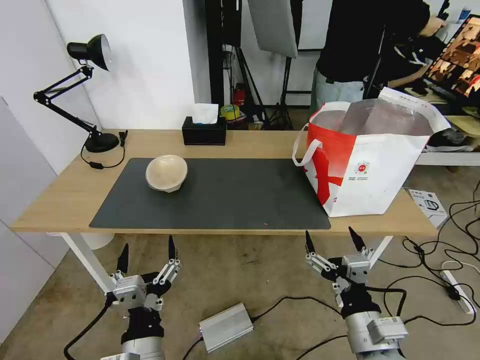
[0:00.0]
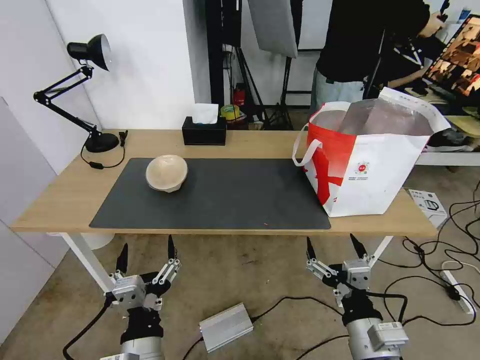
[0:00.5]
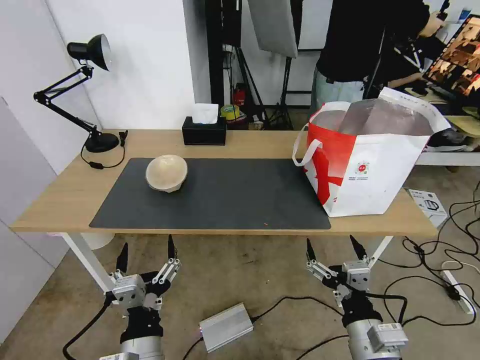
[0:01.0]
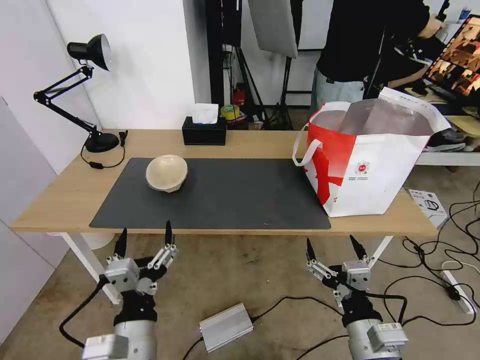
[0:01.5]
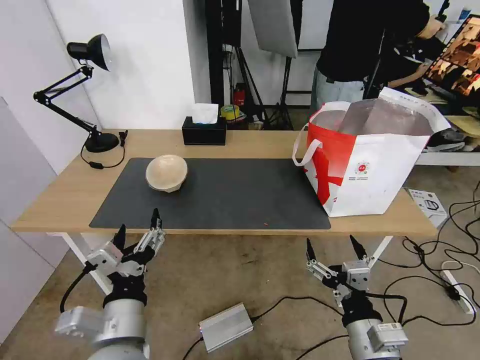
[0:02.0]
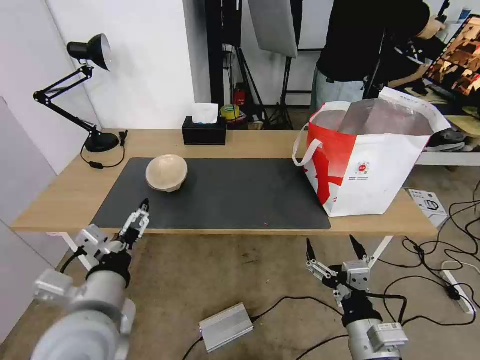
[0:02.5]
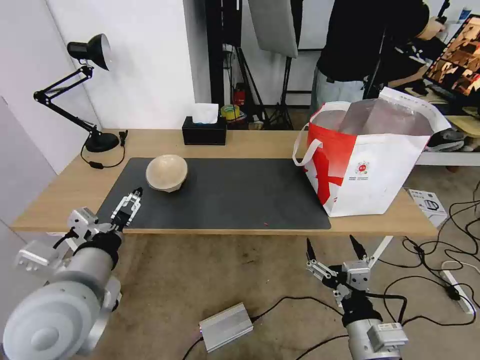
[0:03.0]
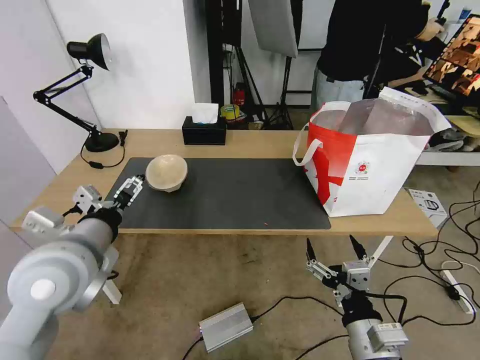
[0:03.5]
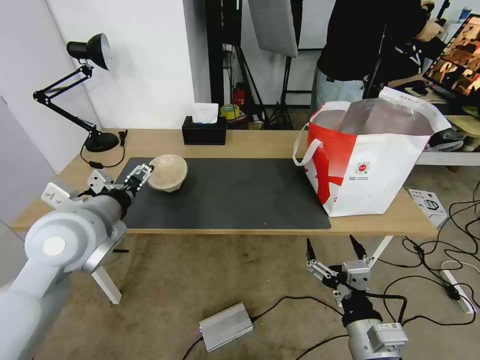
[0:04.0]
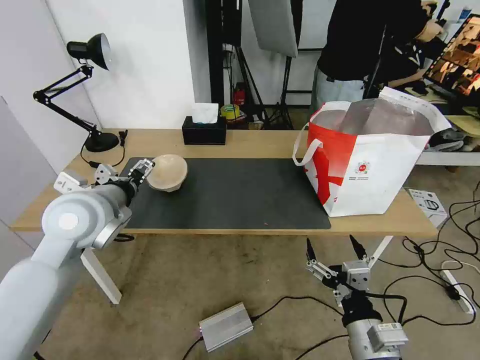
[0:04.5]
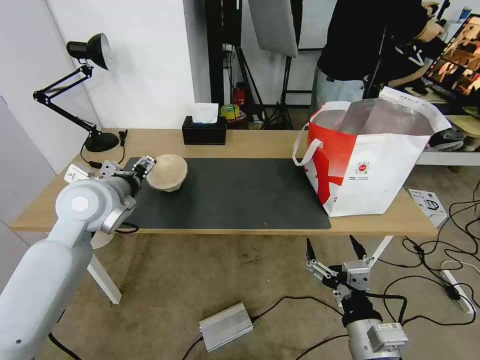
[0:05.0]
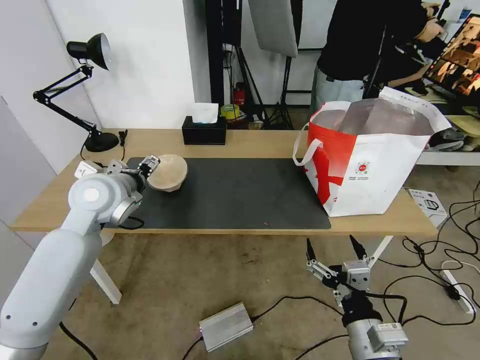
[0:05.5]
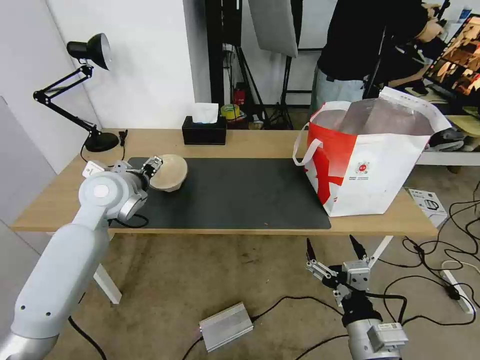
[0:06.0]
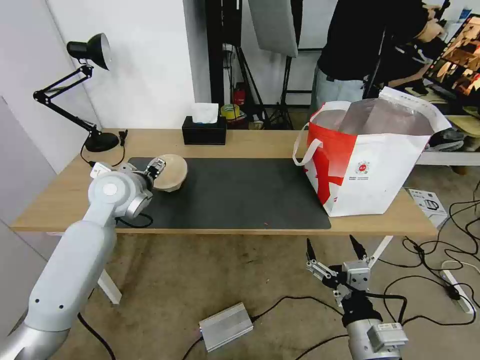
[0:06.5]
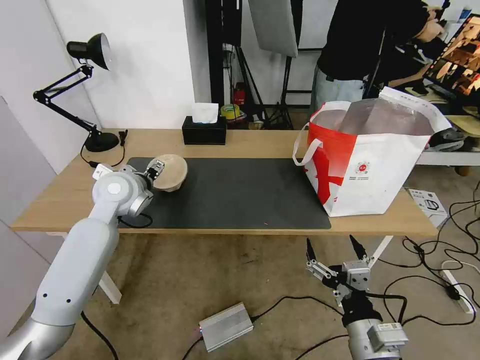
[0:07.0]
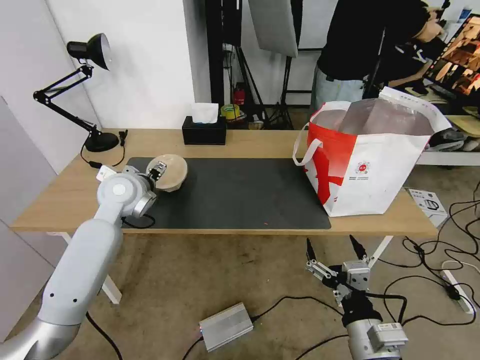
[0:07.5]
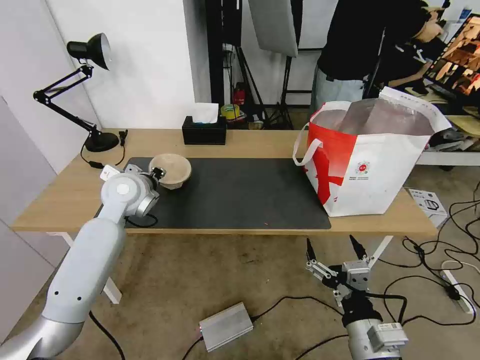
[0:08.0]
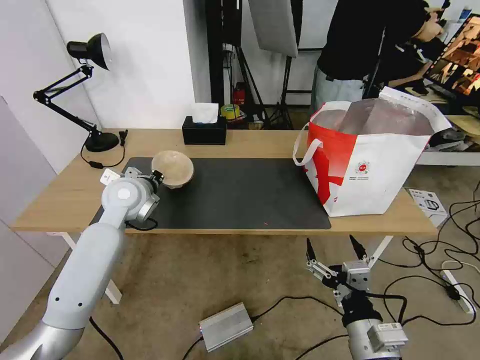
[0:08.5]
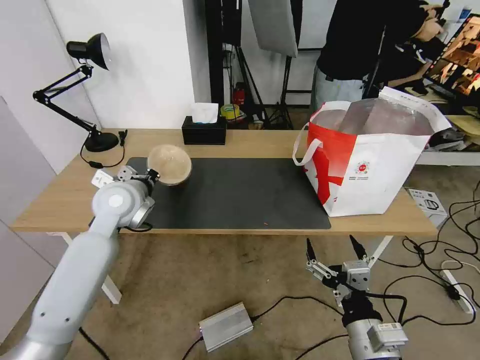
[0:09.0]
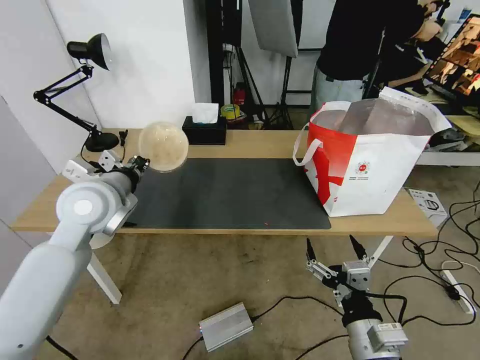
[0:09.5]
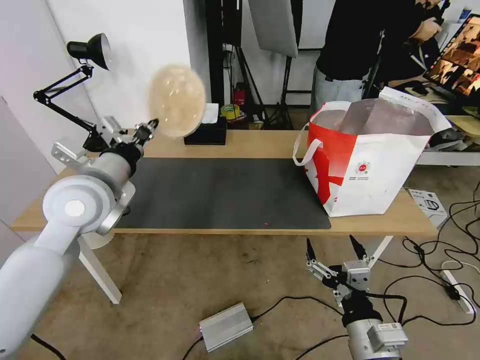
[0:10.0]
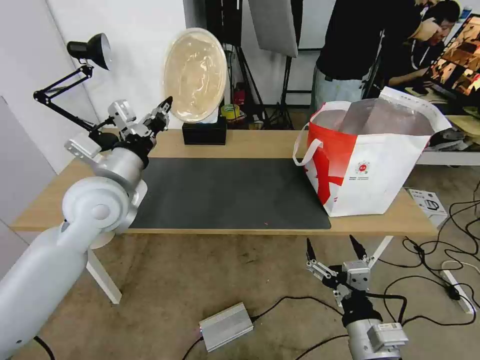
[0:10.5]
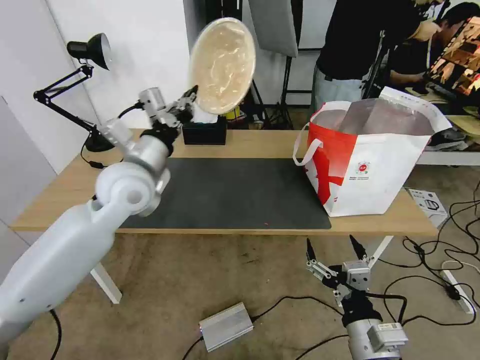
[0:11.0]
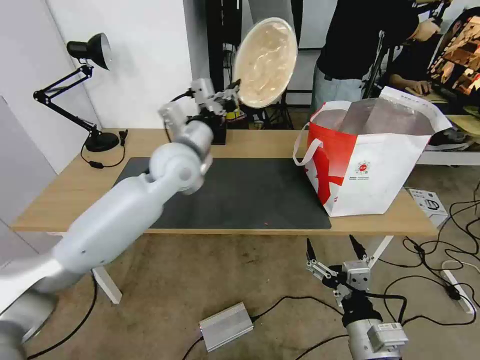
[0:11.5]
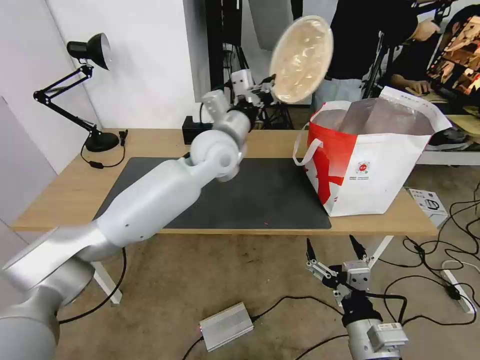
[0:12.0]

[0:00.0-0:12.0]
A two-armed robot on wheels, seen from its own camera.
Task of the whole recording: Pick up the trash from the table and place it into the takeout bag.
0:00.0 to 0:02.0: The left gripper is displaced upward by approximately 5 cm.
0:02.0 to 0:04.0: The left gripper goes some 20 cm forward, upward and to the left.
0:04.0 to 0:06.0: The left gripper shifts some 10 cm forward.
0:06.0 to 0:08.0: The left gripper changes place by approximately 5 cm, and closes.
0:08.0 to 0:10.0: The left gripper heads backward and upward, covering some 15 cm.
0:10.0 to 0:12.0: The left gripper shifts roughly 25 cm to the right and forward.

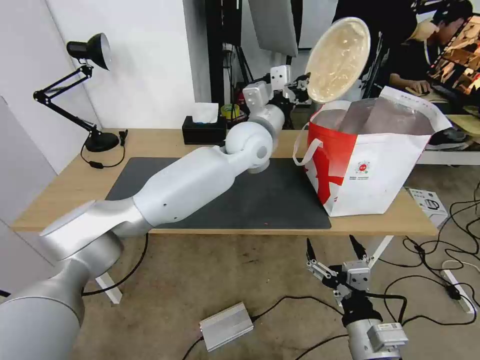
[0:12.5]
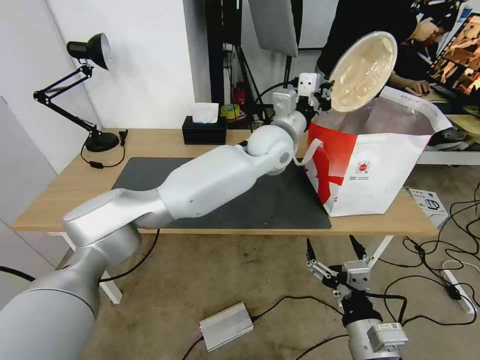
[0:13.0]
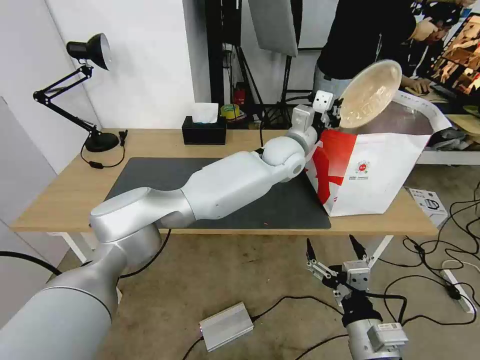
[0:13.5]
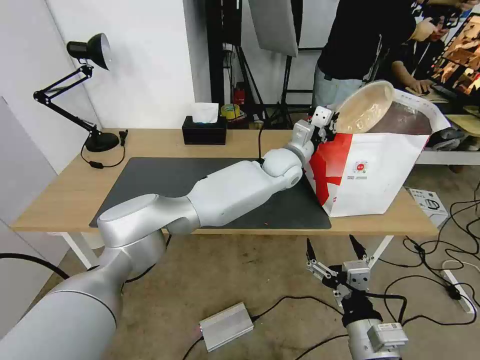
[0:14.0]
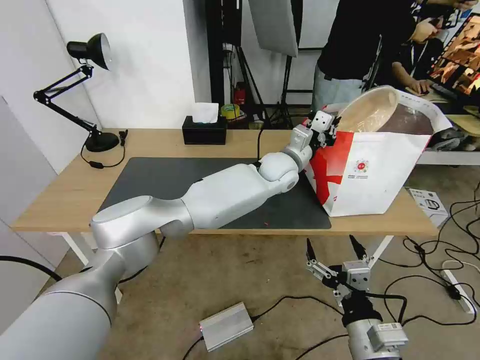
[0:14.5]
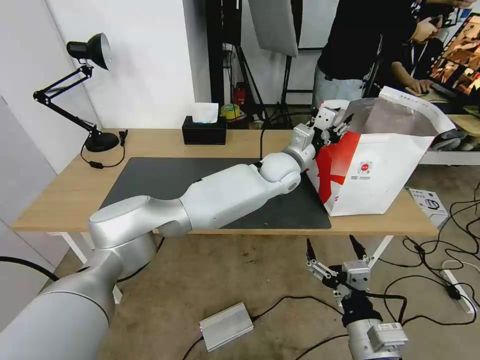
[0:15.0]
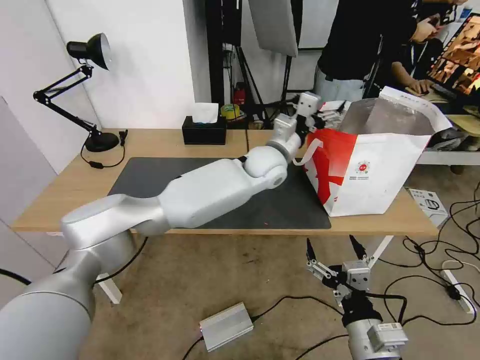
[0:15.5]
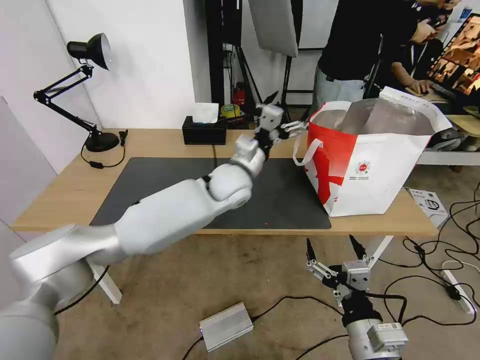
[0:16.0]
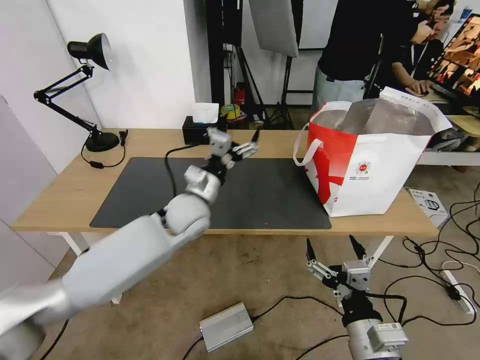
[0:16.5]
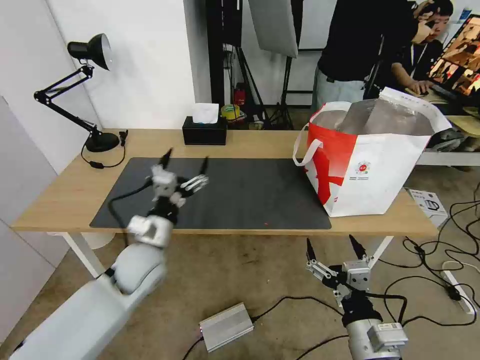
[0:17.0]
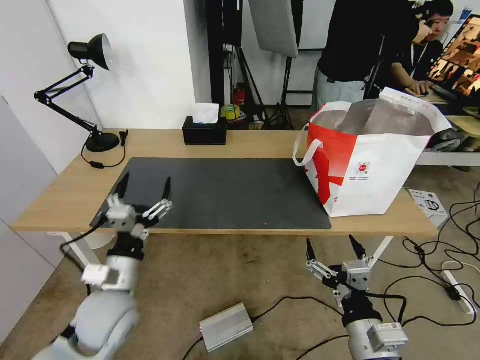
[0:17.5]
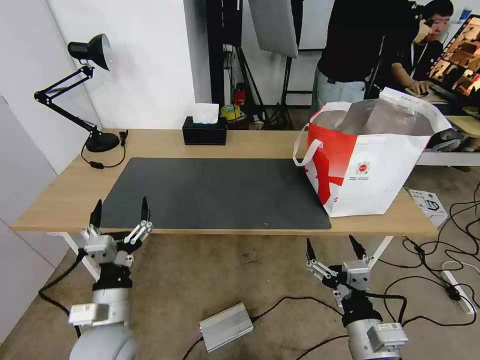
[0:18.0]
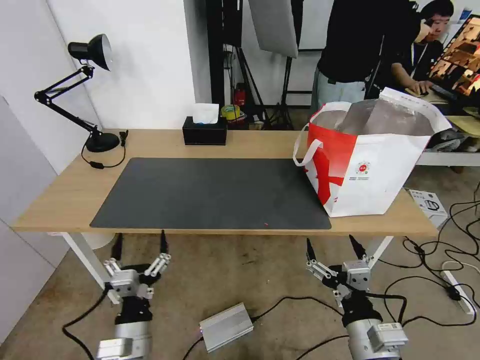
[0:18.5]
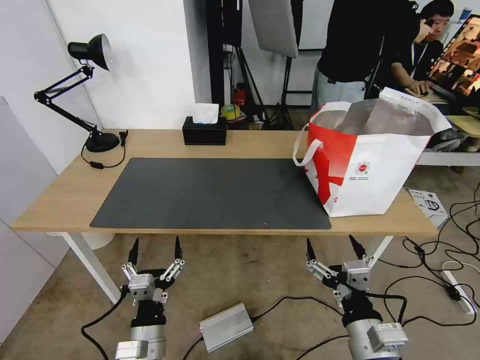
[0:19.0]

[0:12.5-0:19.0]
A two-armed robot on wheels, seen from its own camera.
Task of the whole recording: Pick up the trash from the table and place it into the takeout bag.
0:12.5 to 0:14.5: The left gripper goes some 10 cm downward and to the right.
0:14.5 to 0:17.0: The left gripper goes about 35 cm to the left and backward, and opens.
0:17.0 to 0:19.0: The left gripper shifts about 20 cm backward and downward.

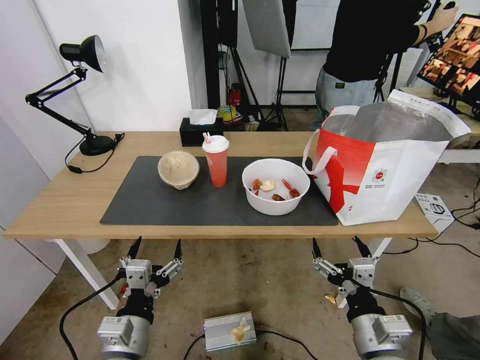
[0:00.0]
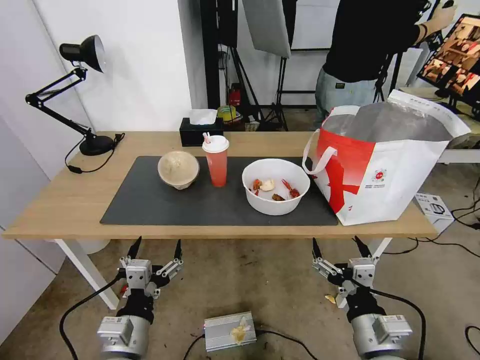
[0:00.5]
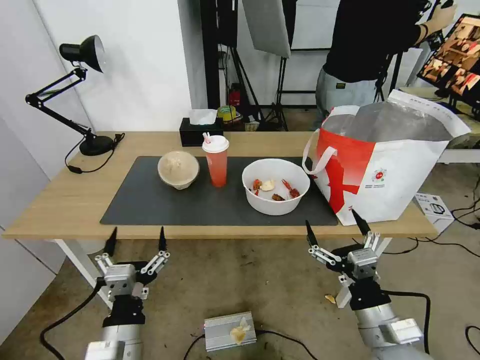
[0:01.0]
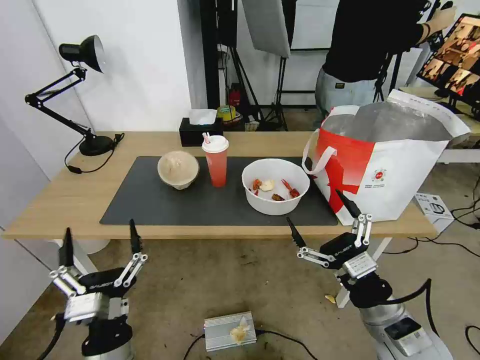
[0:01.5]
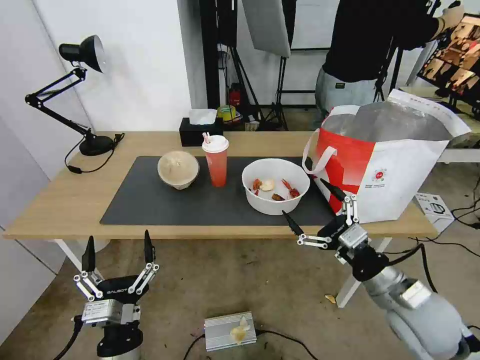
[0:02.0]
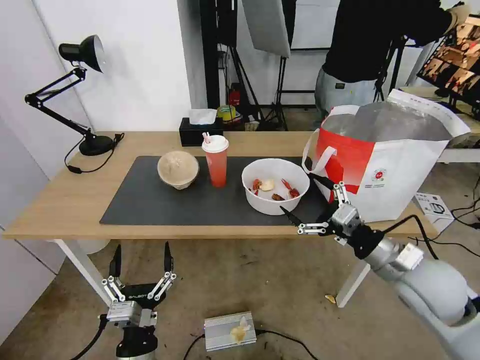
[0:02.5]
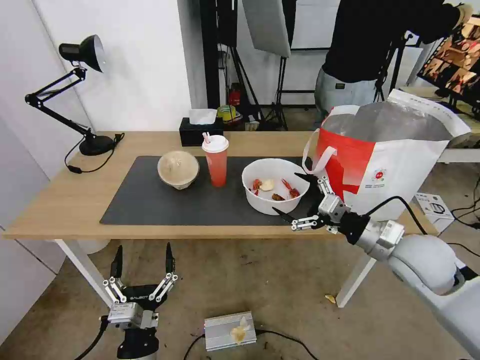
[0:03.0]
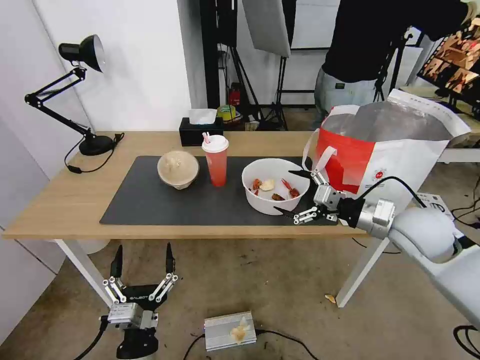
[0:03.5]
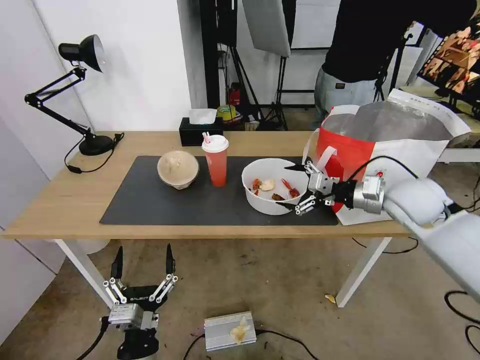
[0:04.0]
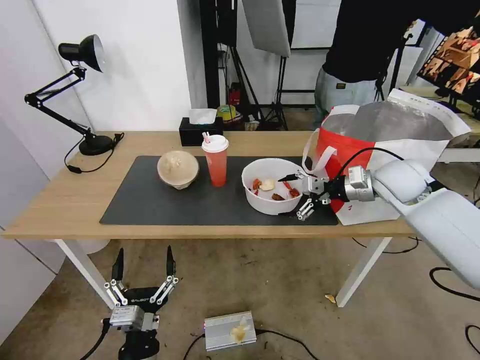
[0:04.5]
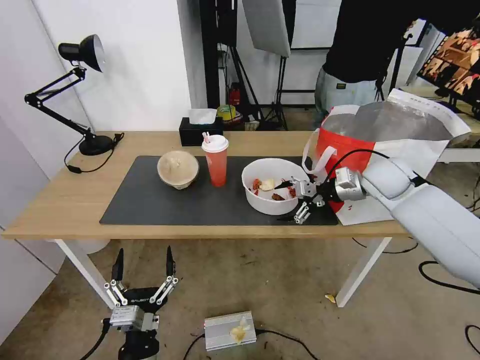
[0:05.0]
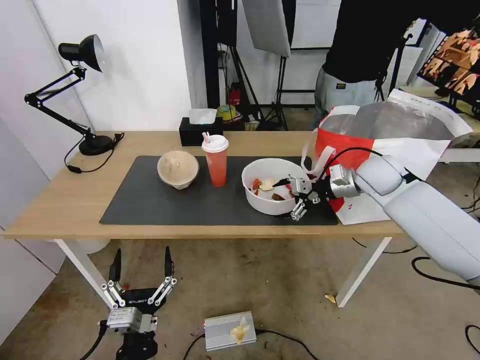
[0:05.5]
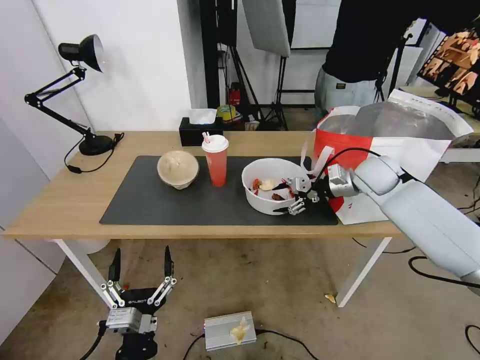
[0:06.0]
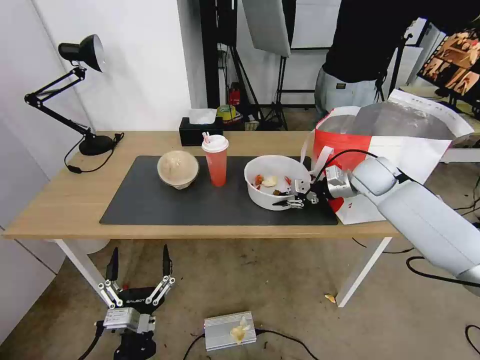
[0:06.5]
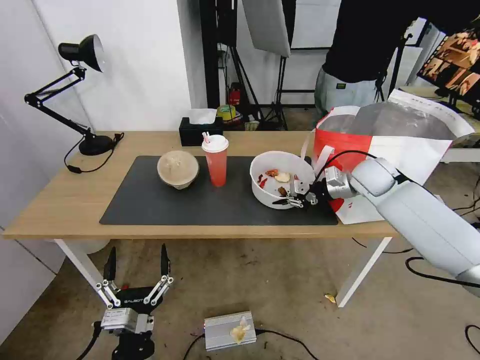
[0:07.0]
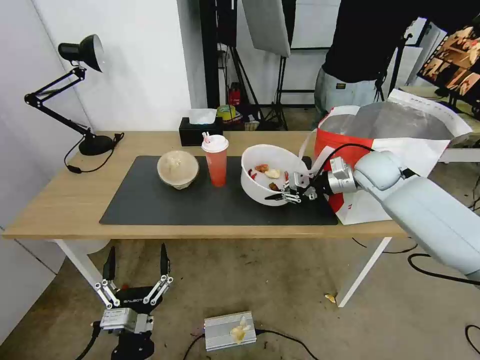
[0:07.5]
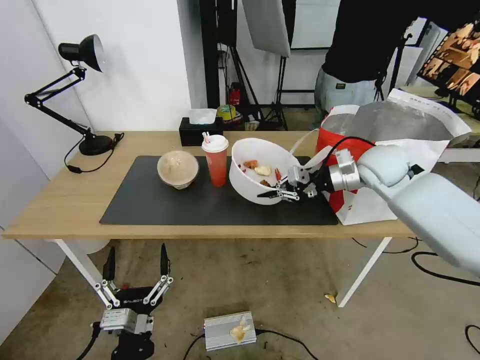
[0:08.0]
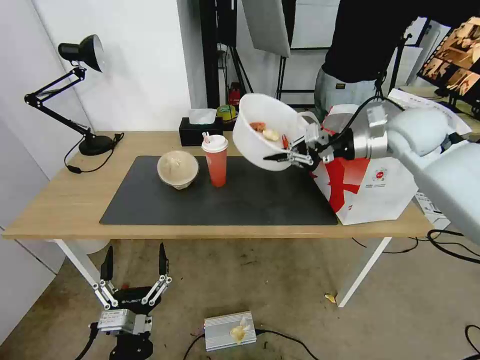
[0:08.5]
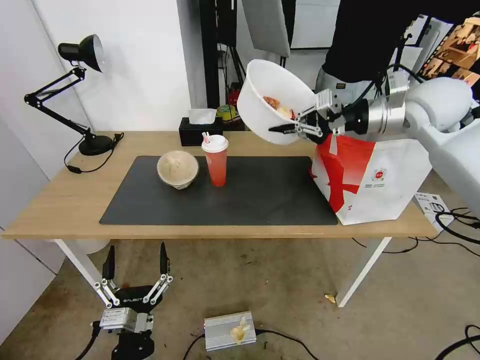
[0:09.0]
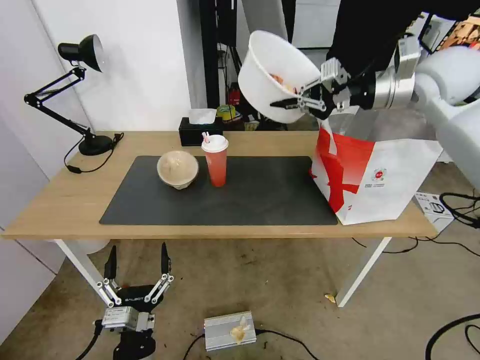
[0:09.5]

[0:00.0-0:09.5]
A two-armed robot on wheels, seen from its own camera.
Task of the whole recording: Pick up the trash from the table and place it into the takeout bag.
0:02.0 to 0:04.0: The left gripper moves some 5 cm. Meanwhile the right gripper moves forward and upward, roughly 25 cm.
0:04.0 to 0:05.5: The right gripper goes about 10 cm forward.
0:05.5 to 0:07.5: The right gripper closes.
0:07.5 to 0:09.5: The right gripper travels upward by roughly 20 cm.
